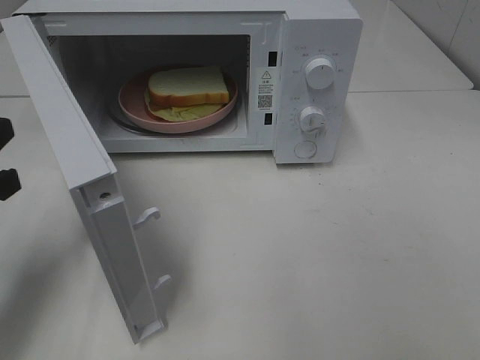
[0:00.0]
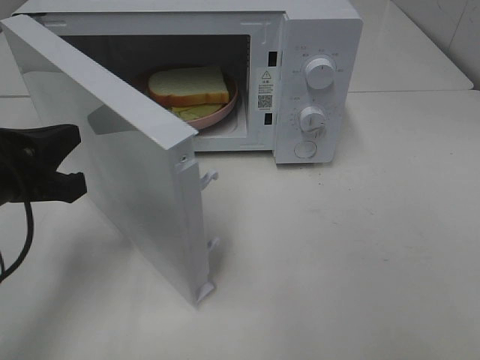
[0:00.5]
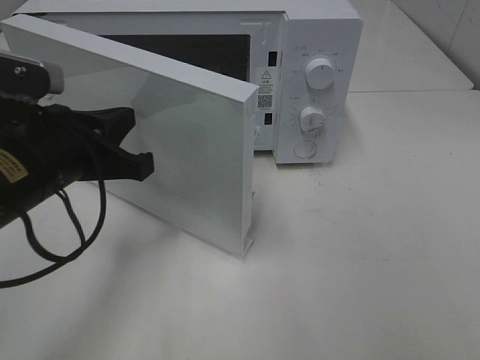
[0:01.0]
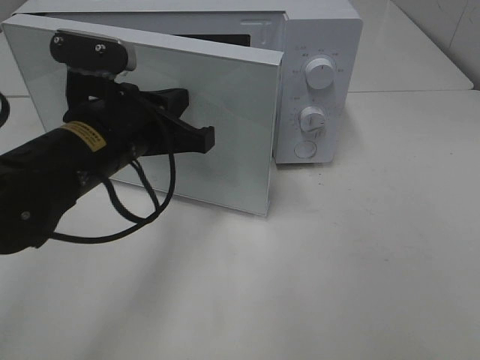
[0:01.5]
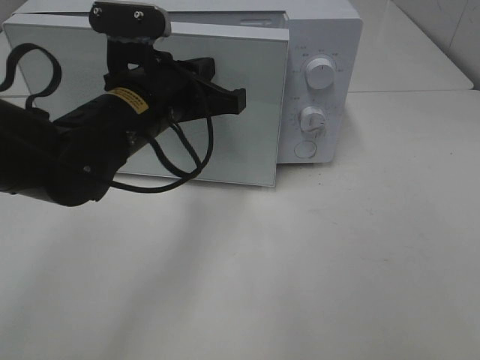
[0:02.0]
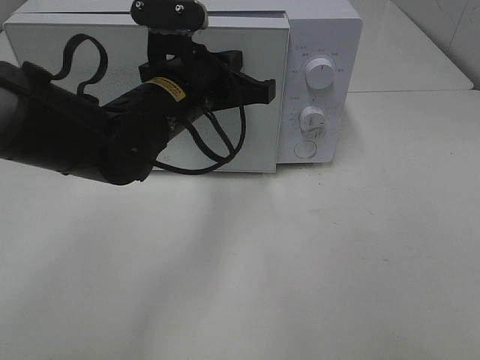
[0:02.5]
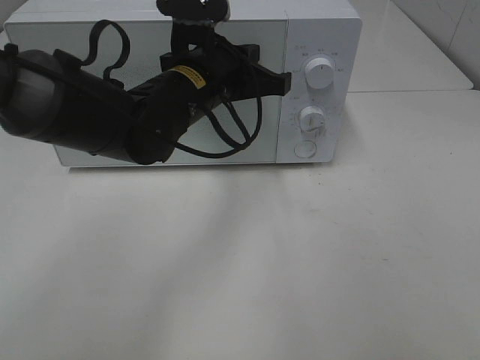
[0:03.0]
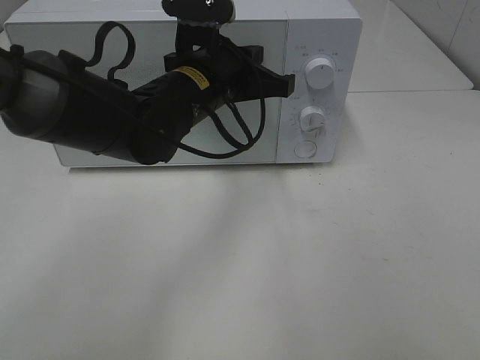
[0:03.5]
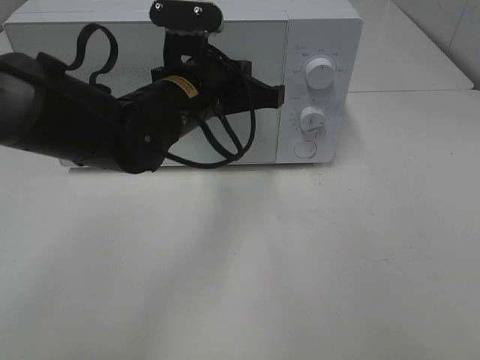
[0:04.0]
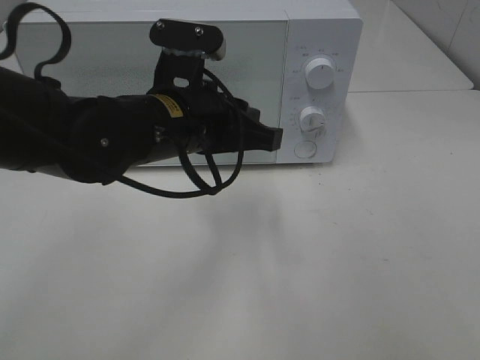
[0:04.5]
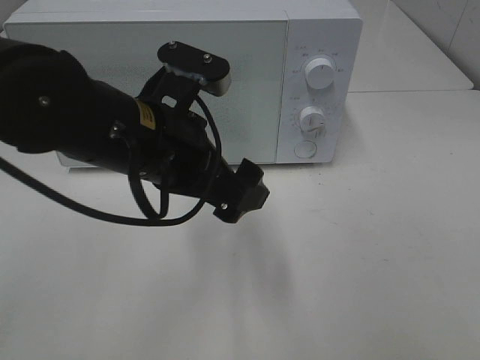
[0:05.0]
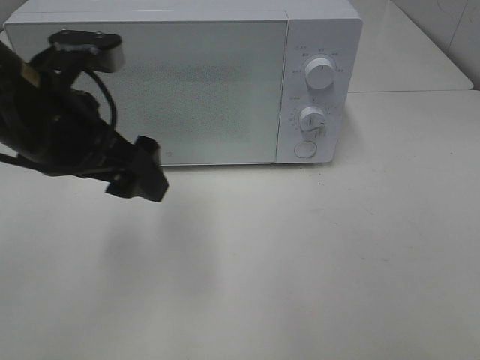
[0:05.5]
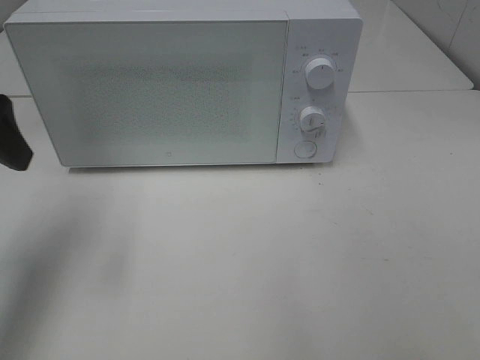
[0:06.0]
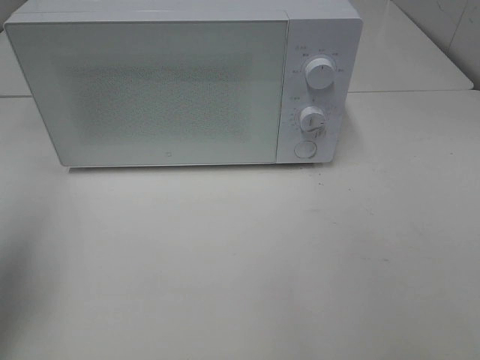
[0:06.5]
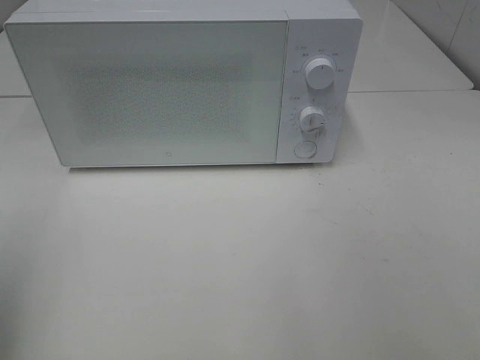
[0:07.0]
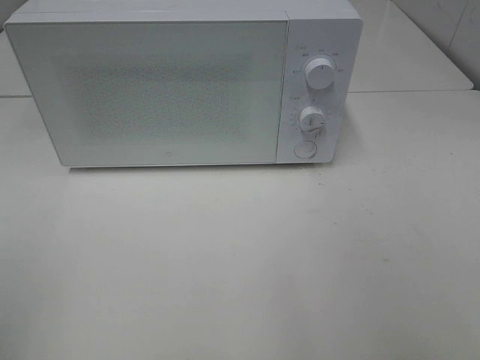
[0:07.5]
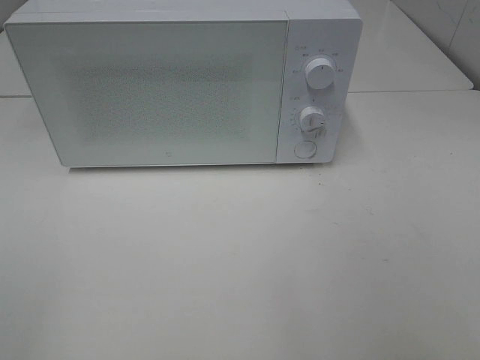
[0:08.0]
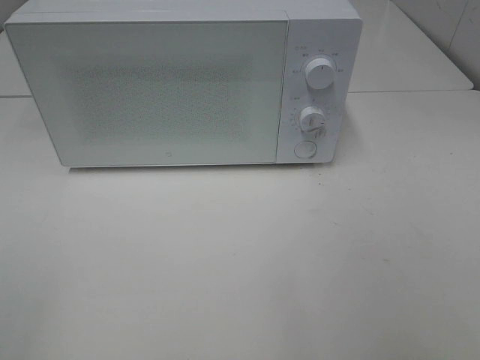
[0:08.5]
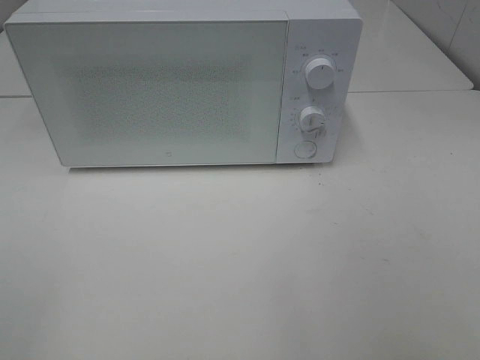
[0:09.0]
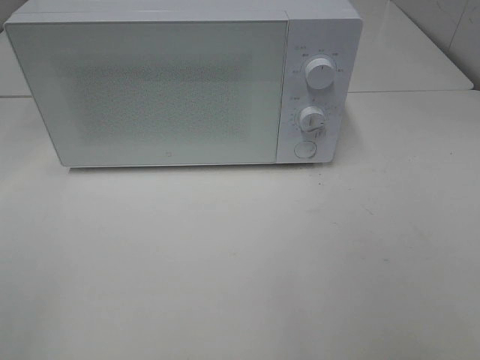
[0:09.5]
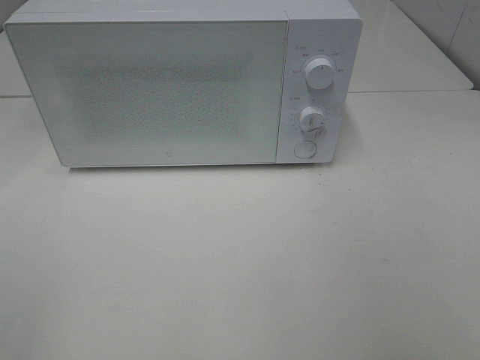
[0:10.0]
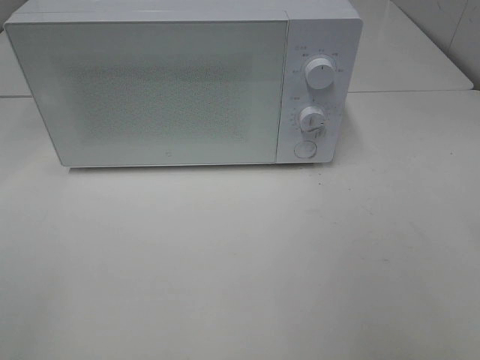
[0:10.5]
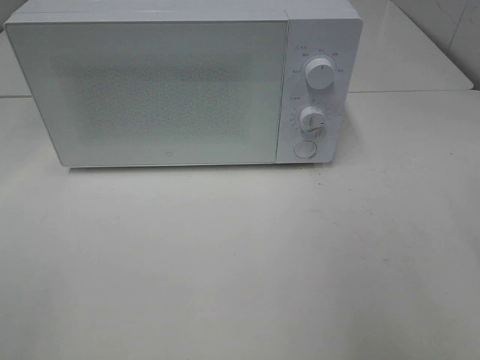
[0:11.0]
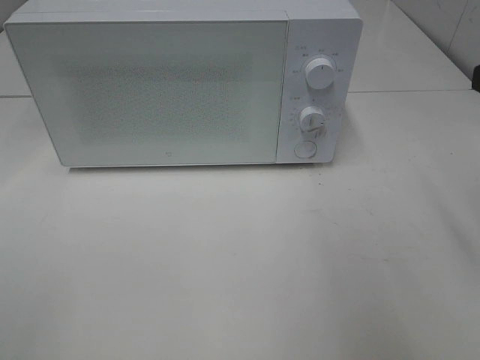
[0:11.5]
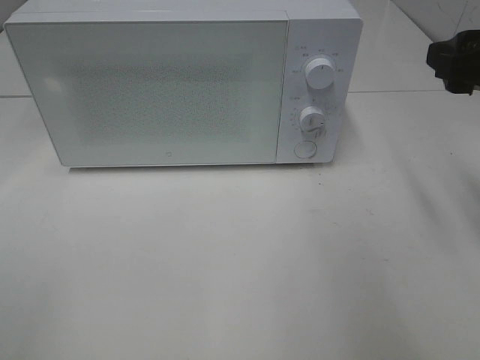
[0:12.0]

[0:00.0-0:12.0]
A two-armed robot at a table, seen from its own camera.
Task of the whole recording: Heat Sandwich.
Step, 0:00.0 to 0:04.0: Left hand: close the microwave door.
0:00.0 to 0:02.0: The left gripper heads to the right and forward, covering about 20 cm.
0:02.0 to 0:04.0: The left gripper shifts by about 5 cm.
0:04.0 to 0:06.0: The left gripper travels to the left and upward by some 25 cm, and opens its fingers.
0:06.0 to 0:08.0: The left gripper is displaced backward by about 25 cm.
0:10.0 to 0:12.0: The right gripper goes some 25 cm forward.

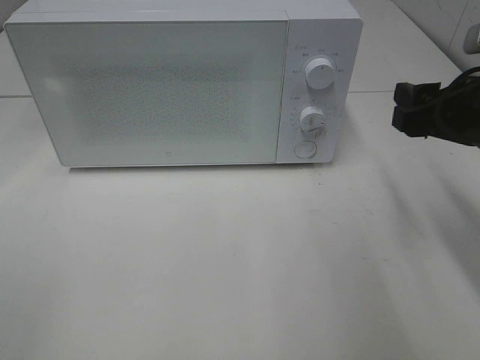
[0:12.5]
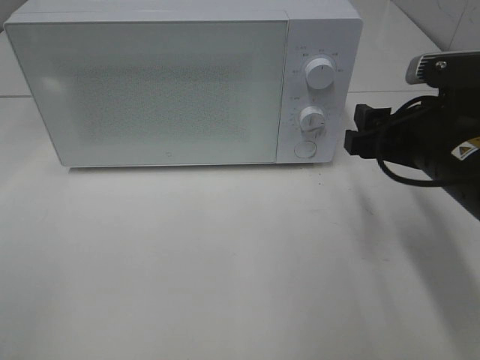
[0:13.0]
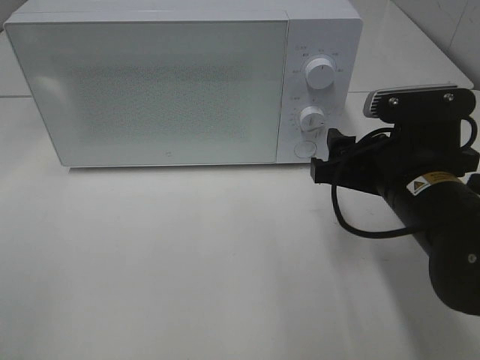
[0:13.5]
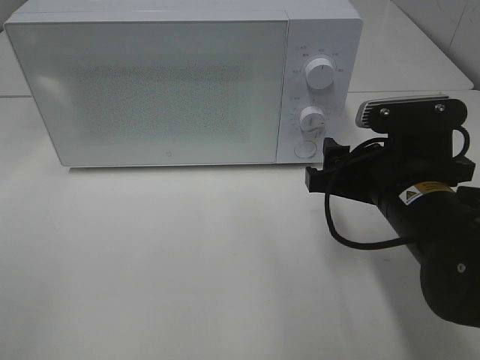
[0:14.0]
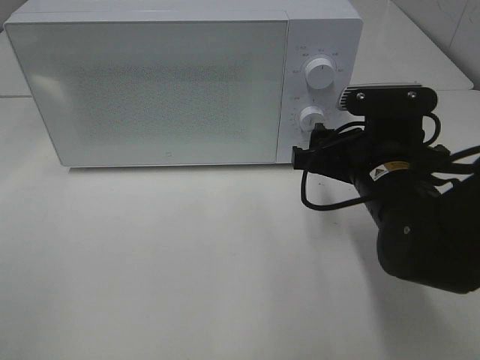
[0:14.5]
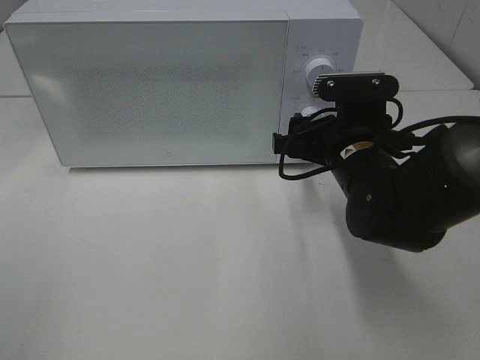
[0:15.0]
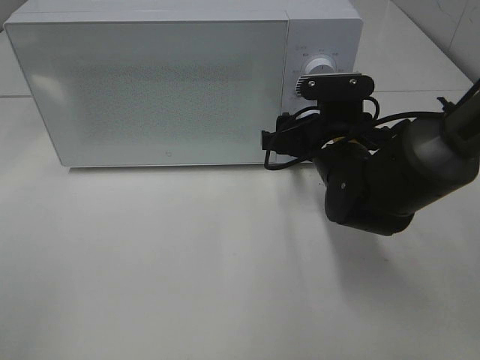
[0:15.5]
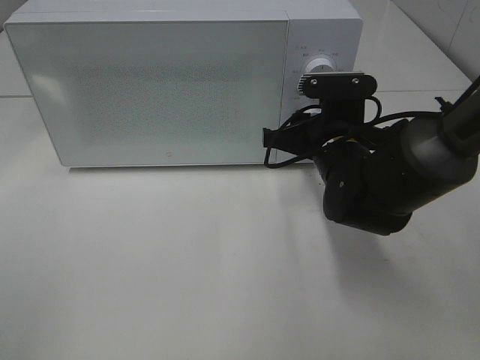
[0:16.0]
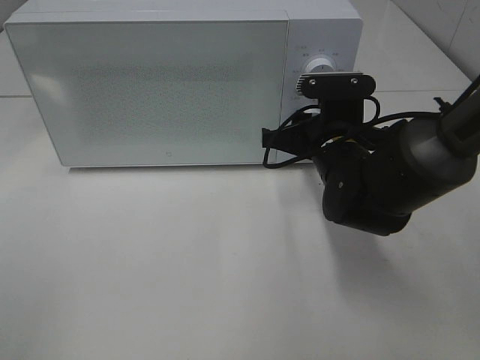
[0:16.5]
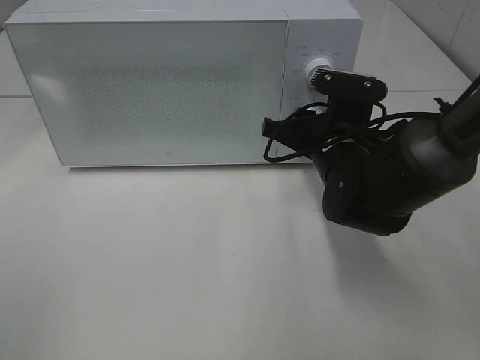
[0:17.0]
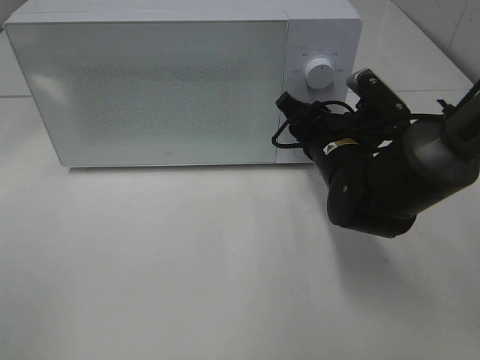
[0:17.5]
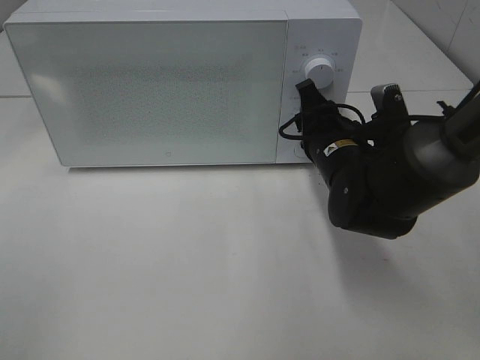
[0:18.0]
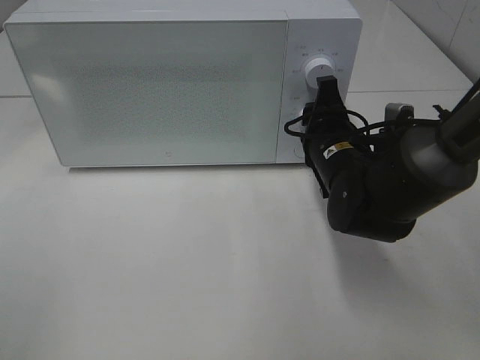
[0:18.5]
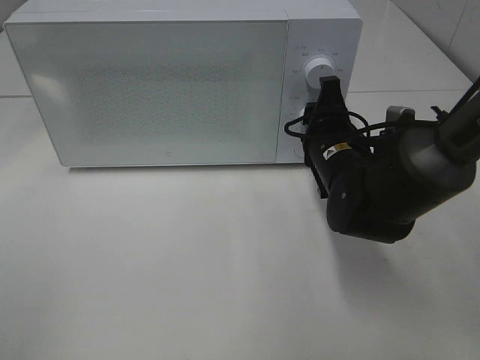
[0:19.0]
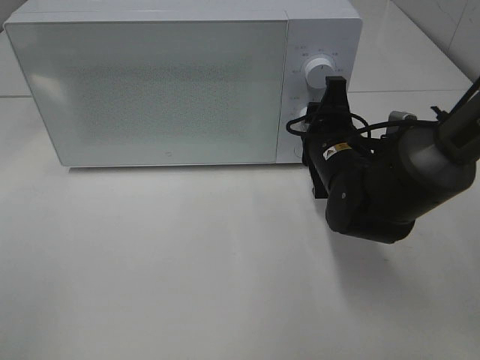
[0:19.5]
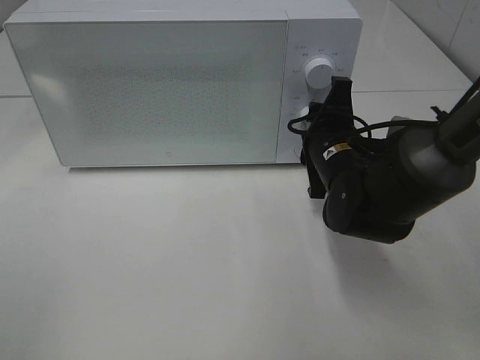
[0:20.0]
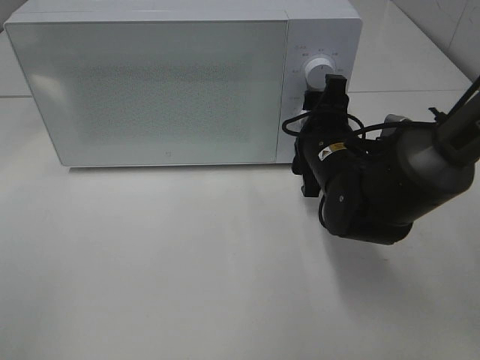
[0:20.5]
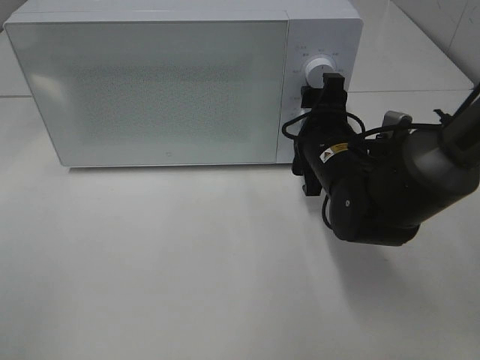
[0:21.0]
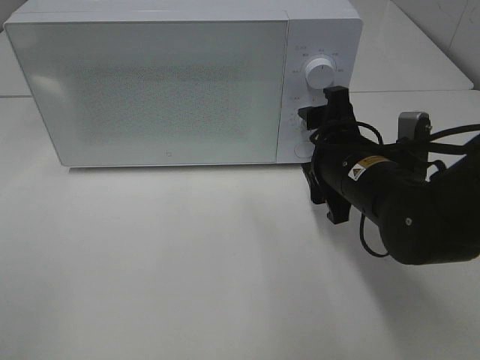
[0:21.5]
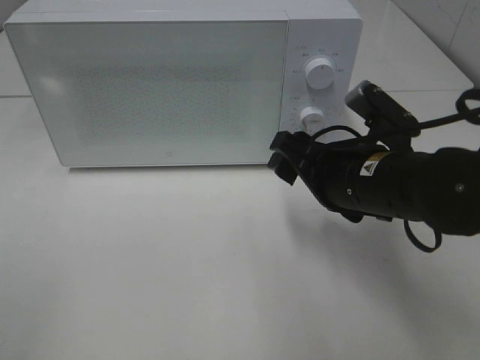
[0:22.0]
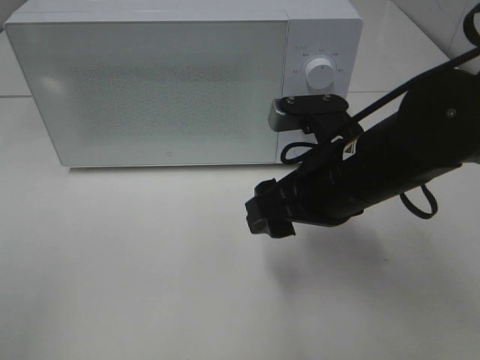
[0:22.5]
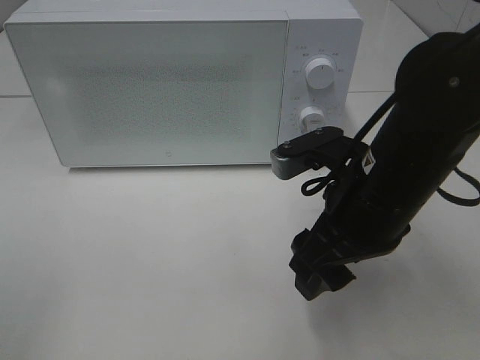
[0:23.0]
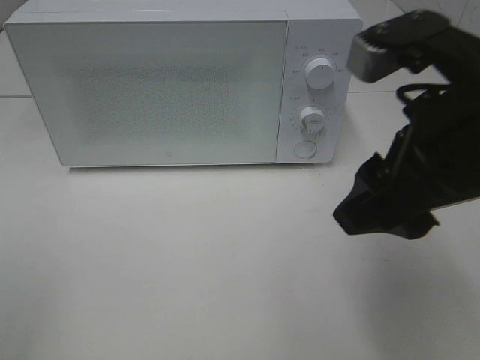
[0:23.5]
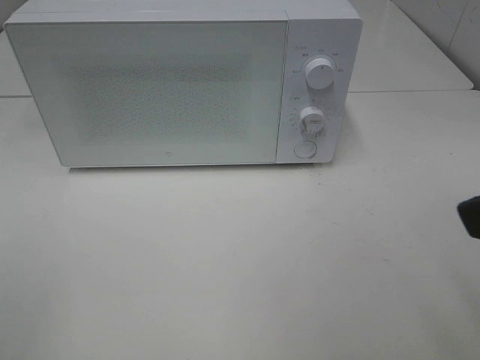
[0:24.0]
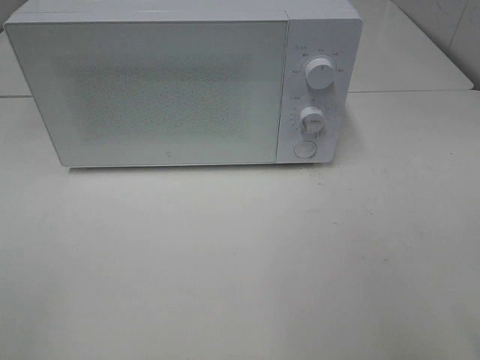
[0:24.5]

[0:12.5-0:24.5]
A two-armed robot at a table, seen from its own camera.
Task of the whole recording: Heat Sandwich.
Step, 0:12.5 to 0:20.0: Right hand: twist timer button.
0:12.5 to 0:14.5: The right gripper heads to the left and downward, covering about 10 cm.
0:14.5 to 0:16.5: The right gripper travels forward by some 5 cm, and closes up.
0:18.5 to 0:20.5: The grippers move only a little.
0:20.5 to 0:22.5: The right gripper heads backward and upward, covering about 10 cm.
0:22.5 to 0:24.5: The right gripper goes some 25 cm backward, to the right and upward.

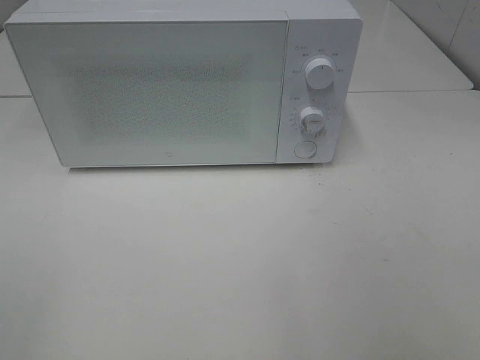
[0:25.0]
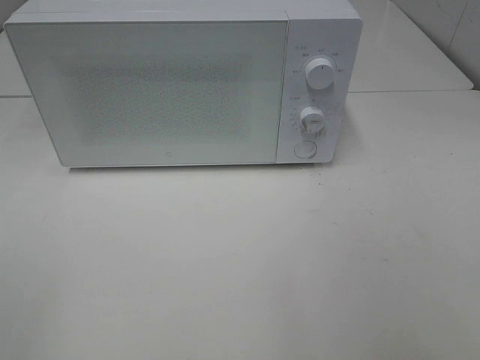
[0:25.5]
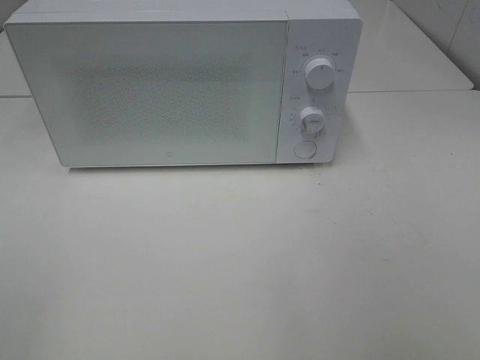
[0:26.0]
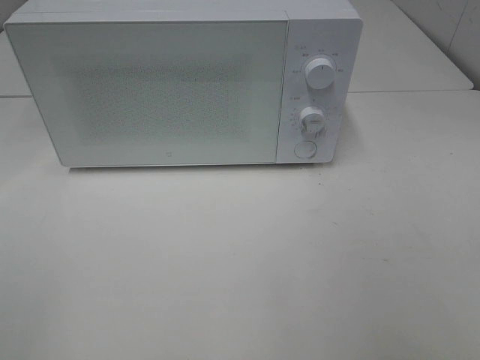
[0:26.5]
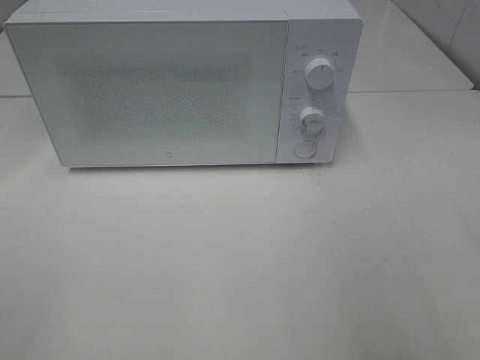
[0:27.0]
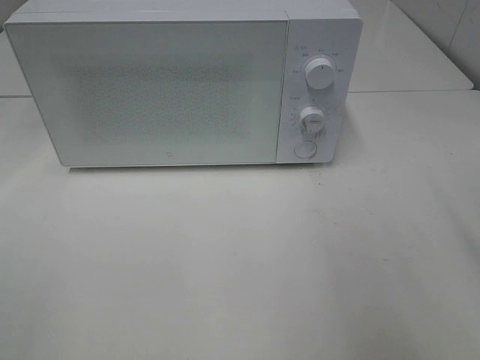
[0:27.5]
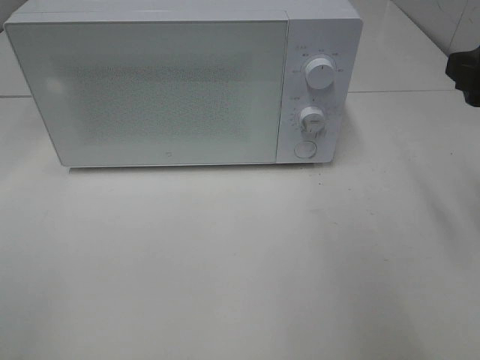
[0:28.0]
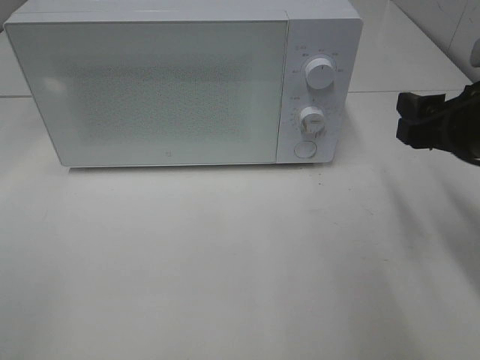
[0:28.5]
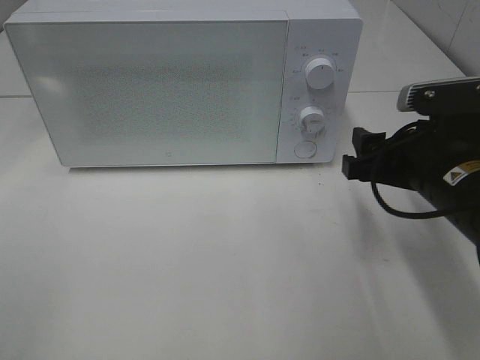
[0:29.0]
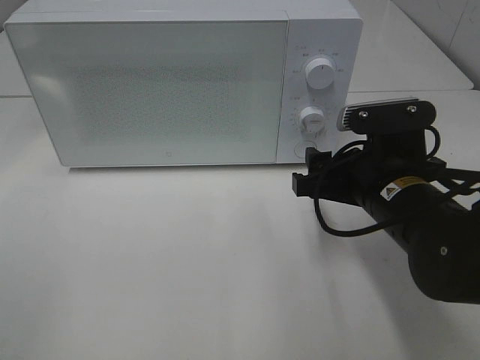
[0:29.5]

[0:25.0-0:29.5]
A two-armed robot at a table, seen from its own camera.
Task of the whole recording: Heat Sandwich.
0:27.0 to 0:29.5: The right gripper is displaced downward, forward and to the left by roughly 25 cm.
